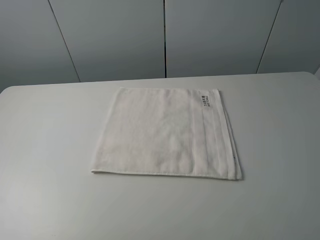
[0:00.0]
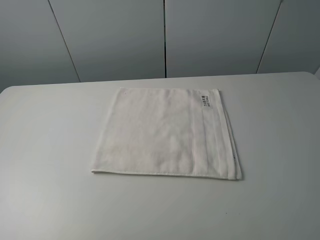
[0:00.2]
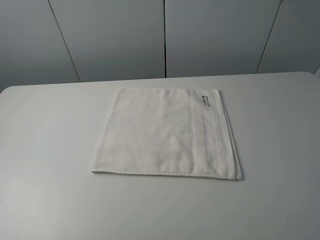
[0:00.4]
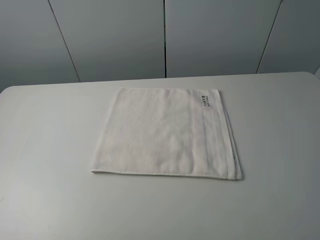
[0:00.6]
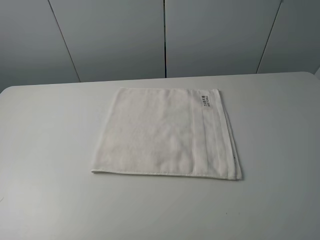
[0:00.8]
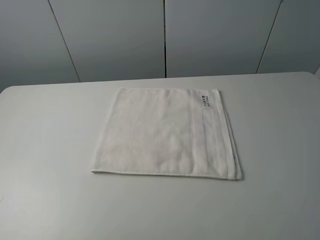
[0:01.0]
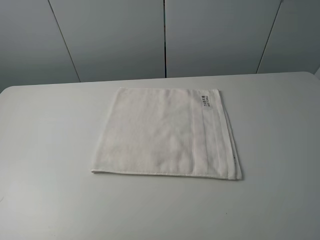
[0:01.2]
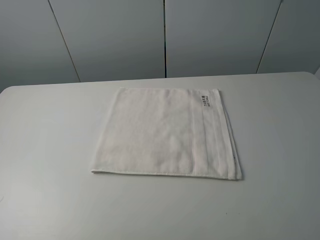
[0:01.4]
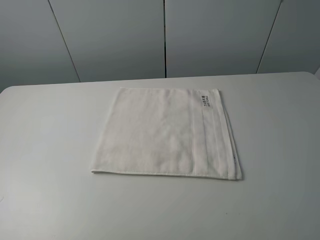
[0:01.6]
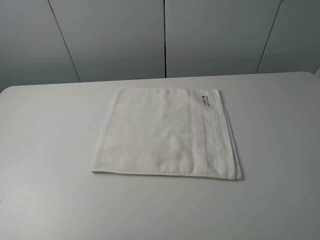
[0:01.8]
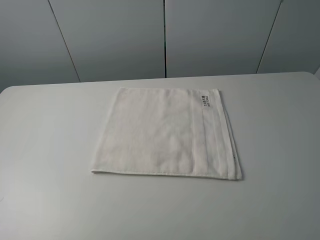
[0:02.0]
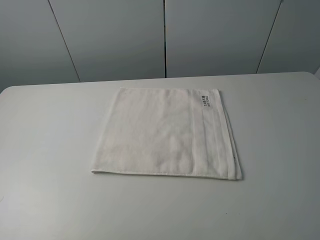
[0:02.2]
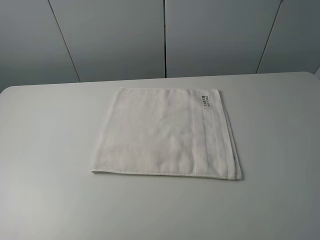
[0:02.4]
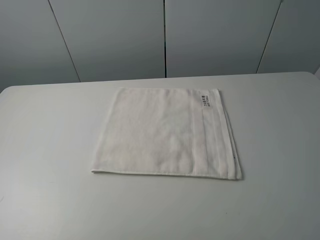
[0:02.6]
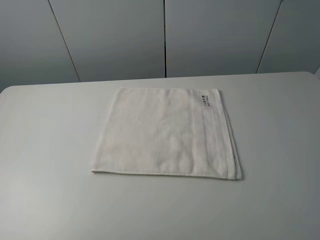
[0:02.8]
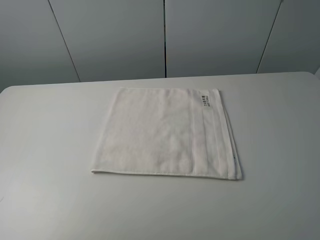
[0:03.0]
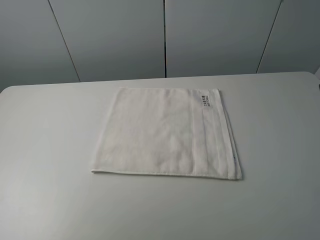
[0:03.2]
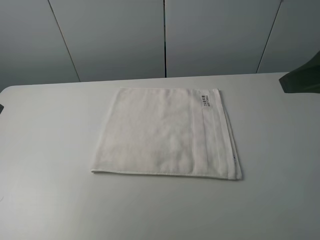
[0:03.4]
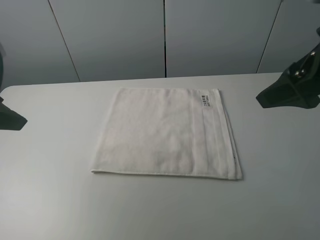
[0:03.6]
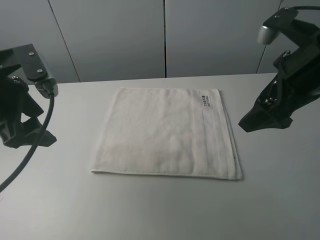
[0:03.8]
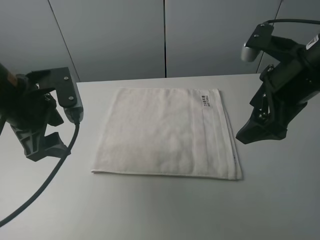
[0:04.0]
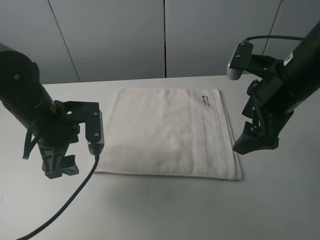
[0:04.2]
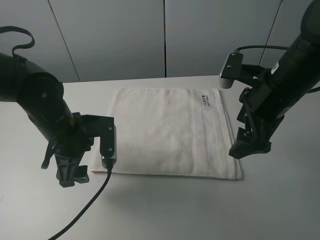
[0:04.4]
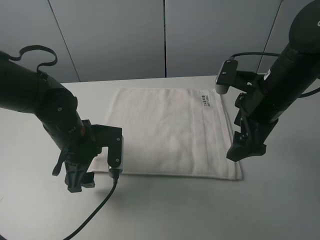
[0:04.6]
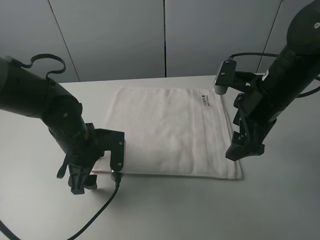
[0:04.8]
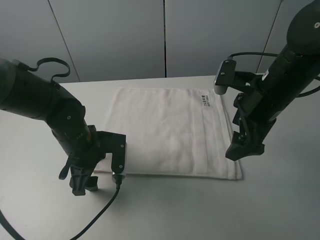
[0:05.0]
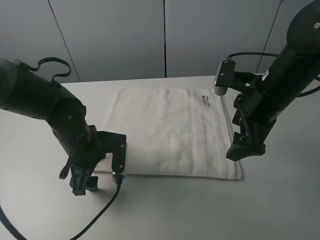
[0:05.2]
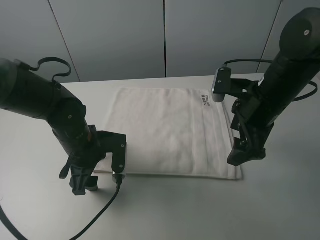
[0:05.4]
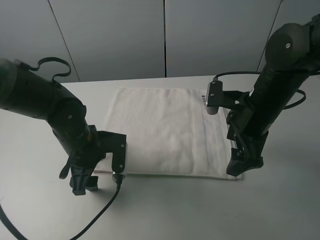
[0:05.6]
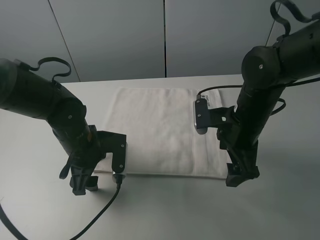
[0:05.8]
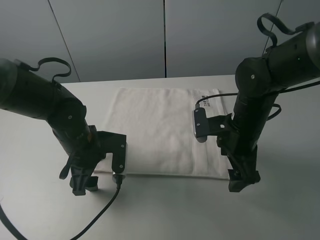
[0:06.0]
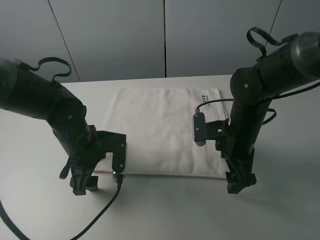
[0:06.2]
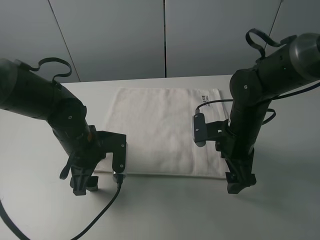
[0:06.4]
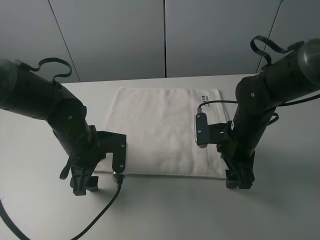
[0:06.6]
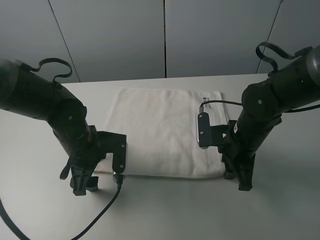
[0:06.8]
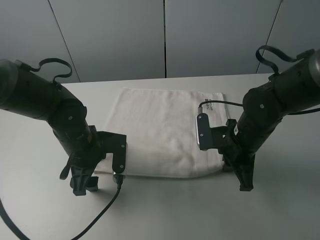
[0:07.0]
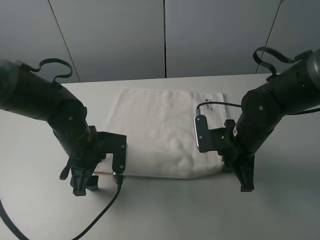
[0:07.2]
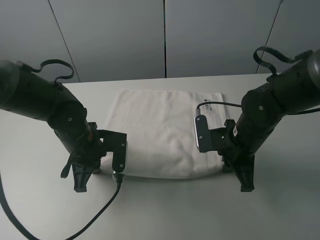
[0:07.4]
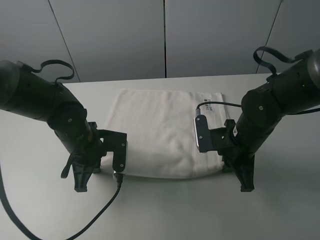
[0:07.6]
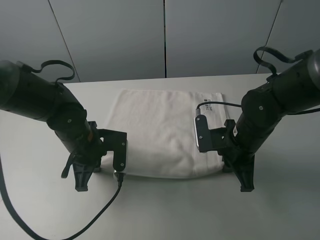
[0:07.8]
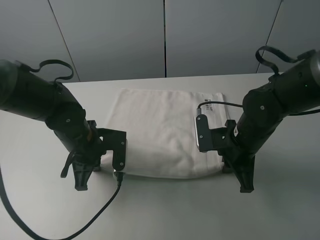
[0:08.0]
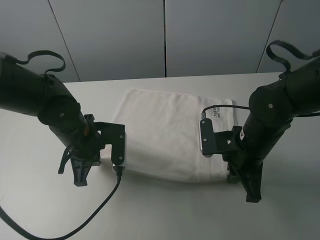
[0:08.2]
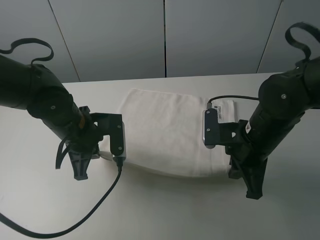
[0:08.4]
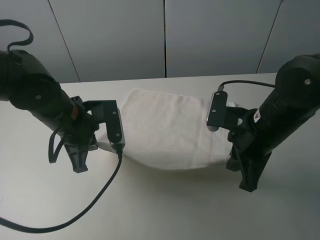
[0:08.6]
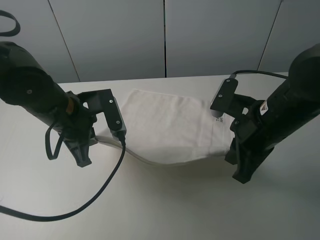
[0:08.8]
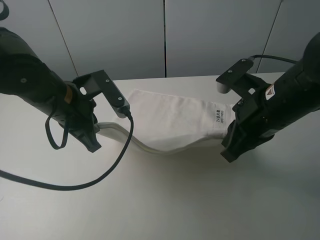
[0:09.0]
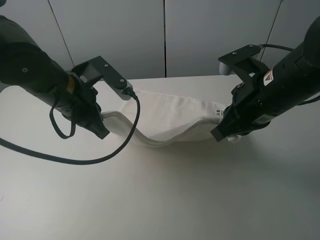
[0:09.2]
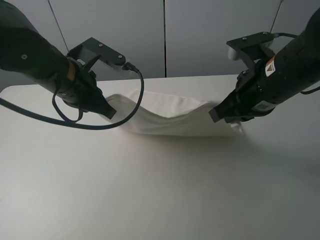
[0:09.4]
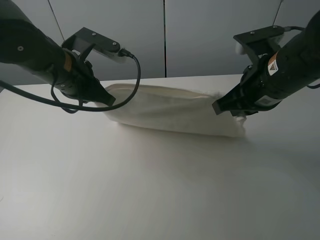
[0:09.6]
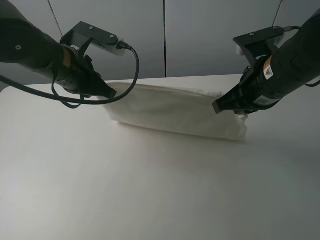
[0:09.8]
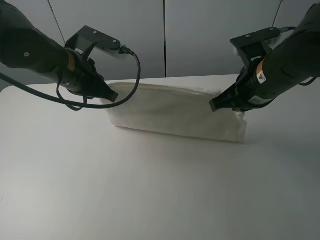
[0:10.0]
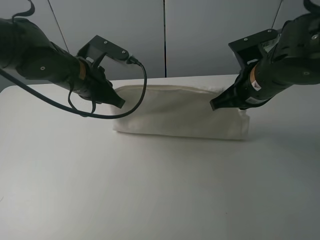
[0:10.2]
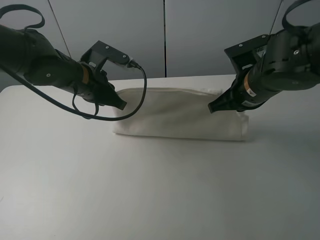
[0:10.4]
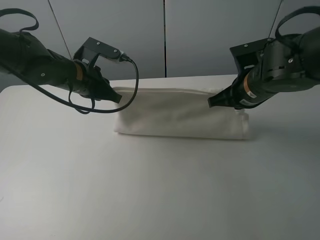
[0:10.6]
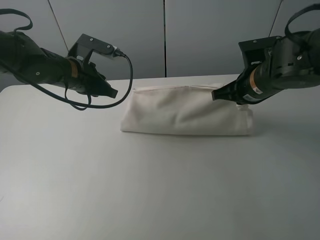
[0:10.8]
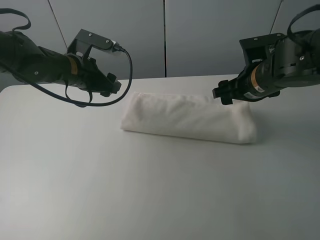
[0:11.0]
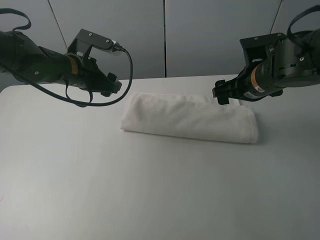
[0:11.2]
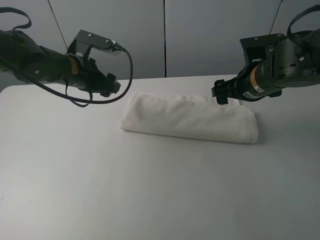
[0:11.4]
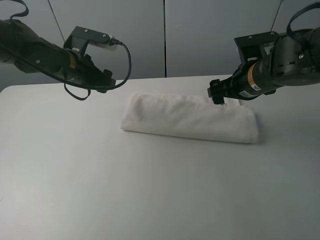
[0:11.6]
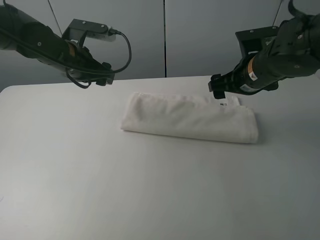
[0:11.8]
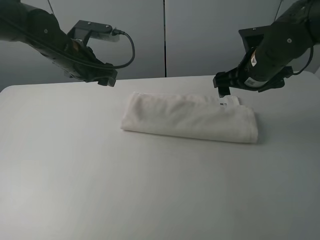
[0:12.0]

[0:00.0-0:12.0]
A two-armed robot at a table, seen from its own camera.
Task of the whole recording: fold the towels on the table.
Step, 0:00.0 to 0:07.0: Grasp the white towel with the right gripper.
Step, 0:07.2 to 0:07.4: Grasp the white towel with the left gripper.
Step, 0:07.6 to 0:11.2: Fold the white towel upwards with the right gripper.
0:00.0 to 0:01.6: Neither gripper changes place.
0:03.0 to 0:04.4: The left gripper shifts about 30 cm downward, forward and to the right. Meanwhile the right gripper is displaced forward, downward and to the left by approximately 25 cm.
0:04.4 to 0:06.0: The right gripper is displaced downward by roughly 10 cm.
0:06.0 to 0:07.6: The right gripper closes. Meanwhile the left gripper closes up.
0:07.6 to 0:09.0: The two grippers go roughly 10 cm upward.
0:09.0 to 0:10.4: The grippers both shift forward by about 5 cm.
0:10.4 to 0:12.0: Both grippers move forward, roughly 5 cm. The left gripper opens its fingers, while the right gripper opens its fingers.

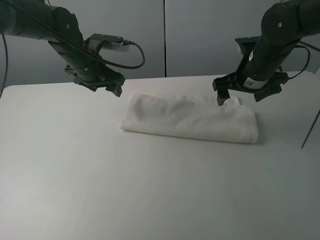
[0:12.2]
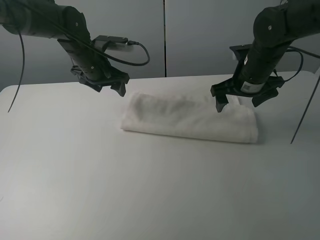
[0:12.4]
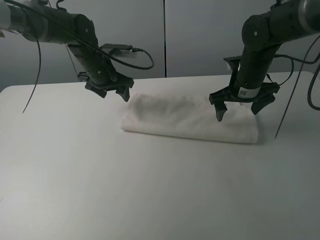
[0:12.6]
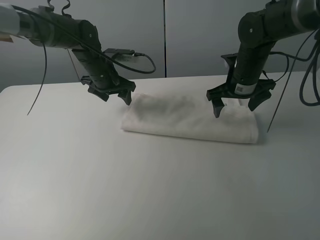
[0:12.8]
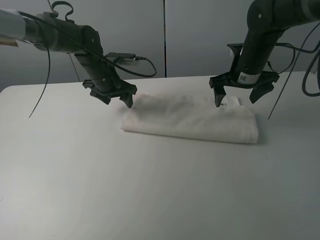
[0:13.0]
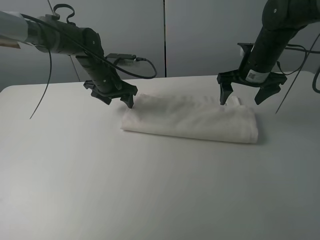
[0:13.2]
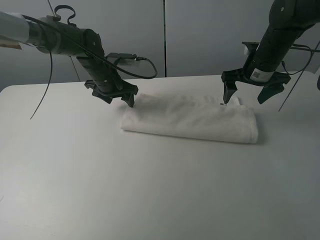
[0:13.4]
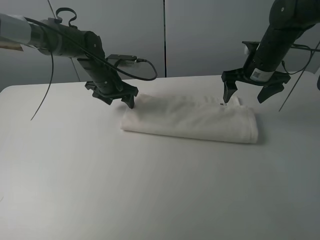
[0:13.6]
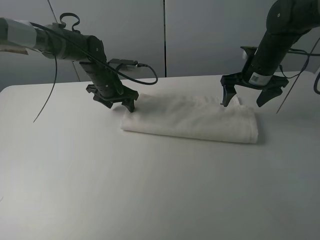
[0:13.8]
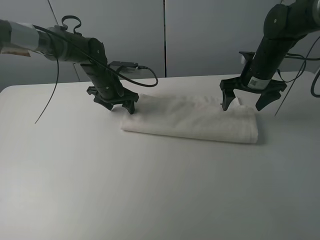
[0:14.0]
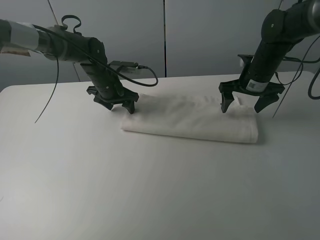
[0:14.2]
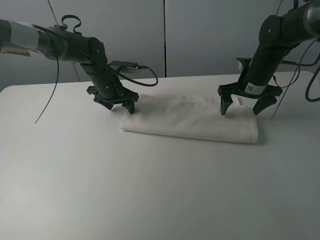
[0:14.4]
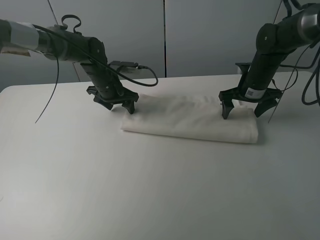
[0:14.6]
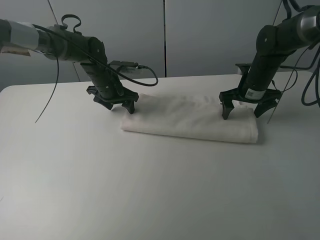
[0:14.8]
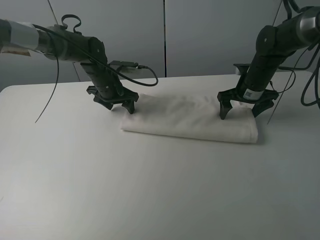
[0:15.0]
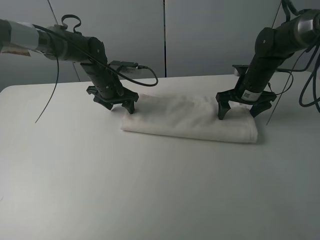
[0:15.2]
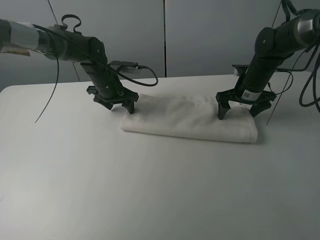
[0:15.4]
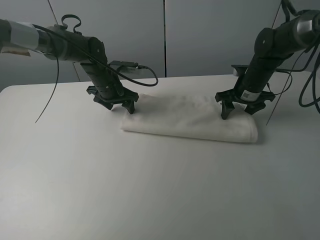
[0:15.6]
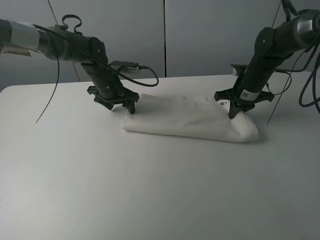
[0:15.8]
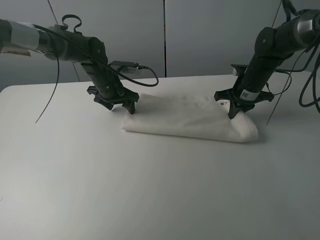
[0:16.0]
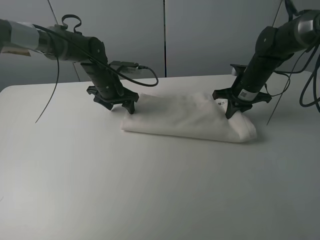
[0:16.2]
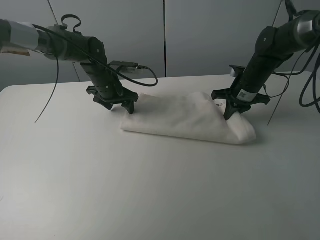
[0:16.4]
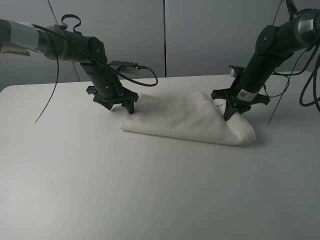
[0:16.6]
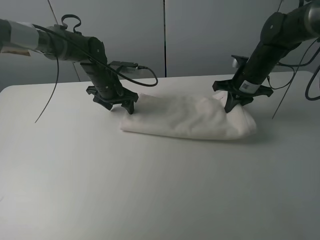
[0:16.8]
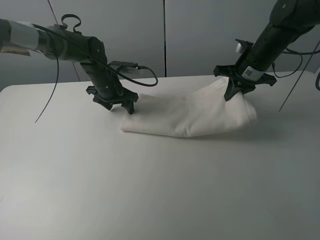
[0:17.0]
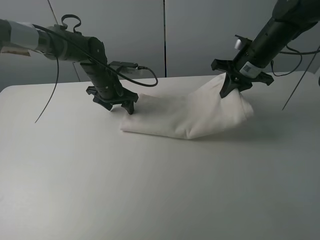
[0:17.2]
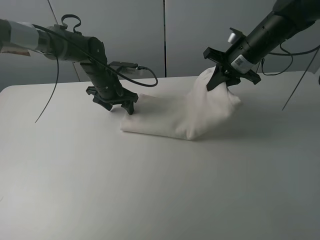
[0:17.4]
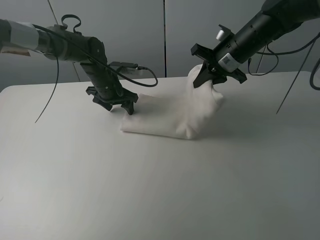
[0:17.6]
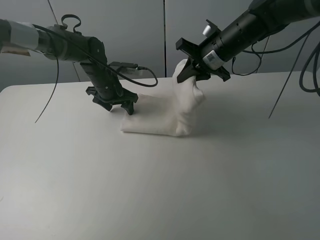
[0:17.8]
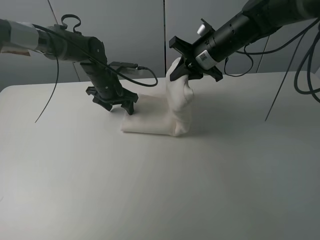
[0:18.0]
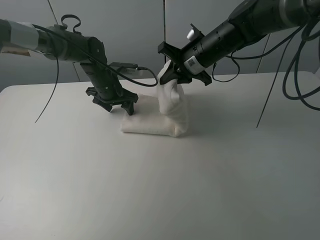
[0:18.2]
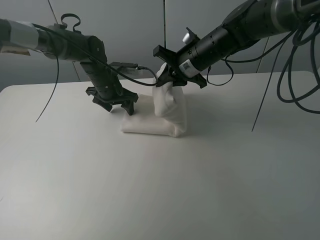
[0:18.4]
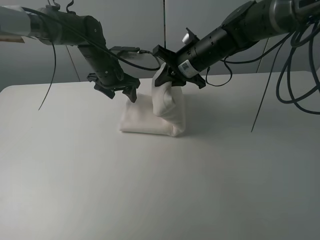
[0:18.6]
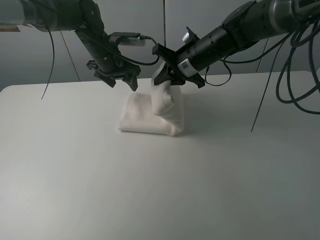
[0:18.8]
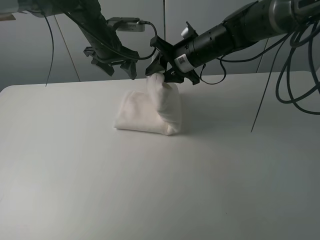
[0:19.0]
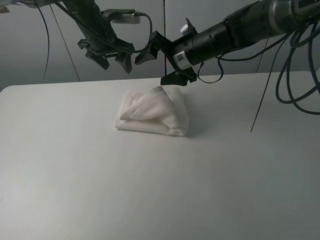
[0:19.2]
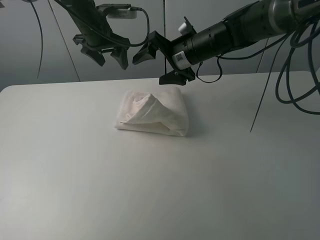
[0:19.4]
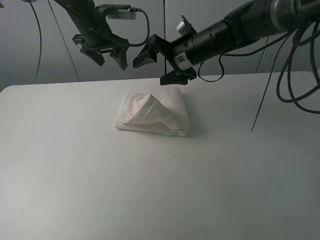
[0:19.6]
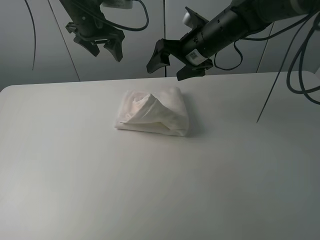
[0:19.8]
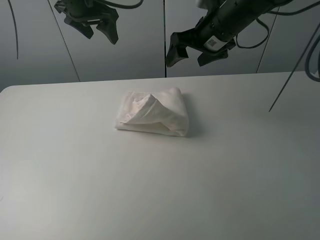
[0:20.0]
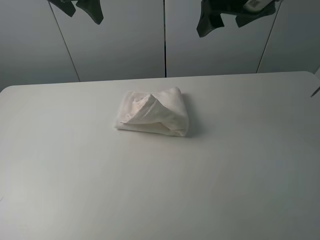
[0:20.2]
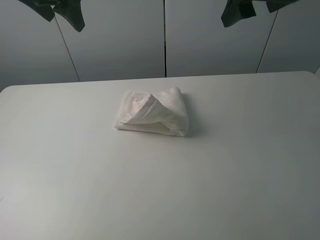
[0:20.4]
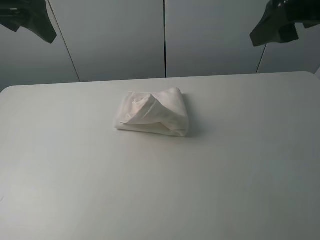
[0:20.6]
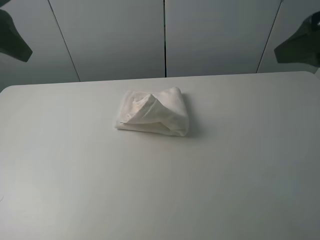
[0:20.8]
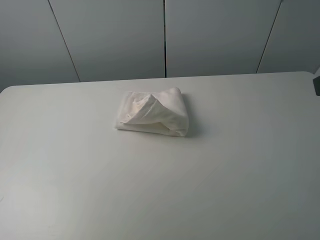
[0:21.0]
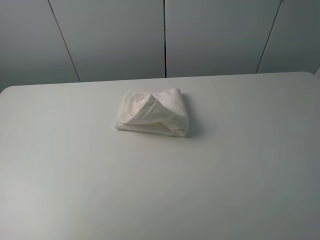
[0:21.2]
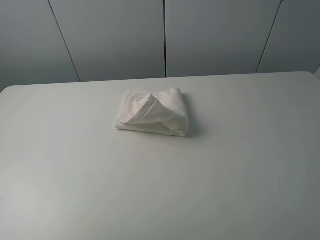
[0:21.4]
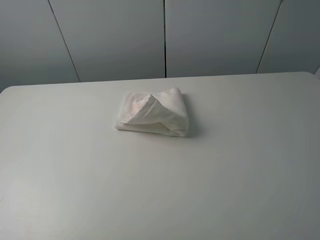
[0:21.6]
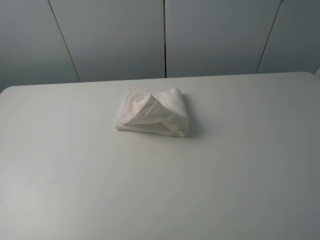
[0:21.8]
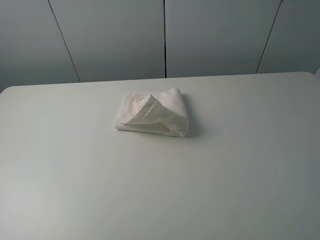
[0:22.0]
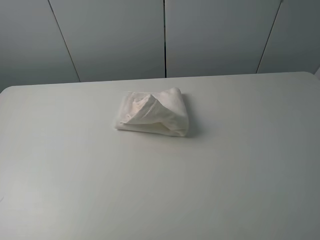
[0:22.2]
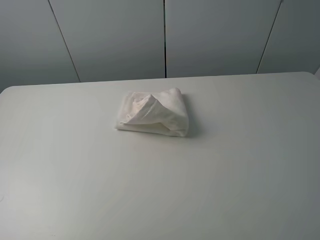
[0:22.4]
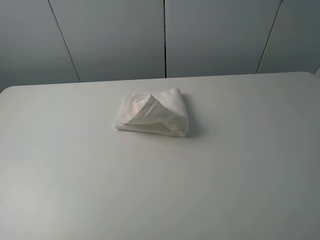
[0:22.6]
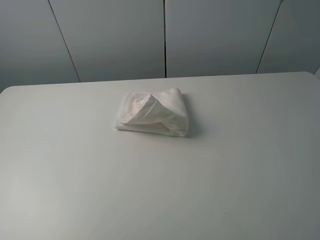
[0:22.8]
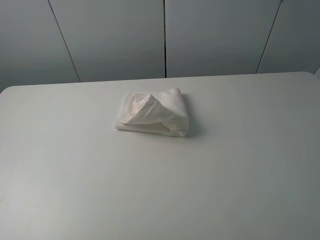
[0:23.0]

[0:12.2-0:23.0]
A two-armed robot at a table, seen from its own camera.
Task of the whole recording: fold the towels on the table.
Step, 0:12.2 to 0:13.8: Press on the white towel with the left gripper.
Step, 0:14.0 to 0:19.2: Fold the white towel from right to left with right gripper.
0:12.2 to 0:13.8: The left gripper is displaced downward by some 5 cm; the right gripper shifts roughly 5 cm forward.
0:13.8 to 0:15.2: The right gripper moves downward, some 5 cm.
0:15.2 to 0:16.8: The right gripper closes its fingers.
0:16.8 to 0:18.4: The right gripper moves to the left, roughly 15 cm.
0:18.4 to 0:20.0: The left gripper heads upward, covering some 20 cm, while the right gripper goes roughly 10 cm upward, and opens its fingers.
0:20.0 to 0:21.4: The right gripper is displaced backward and to the right by about 40 cm; the left gripper moves backward, some 40 cm.
